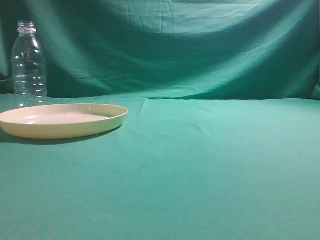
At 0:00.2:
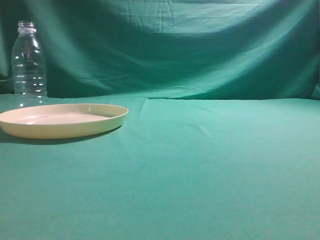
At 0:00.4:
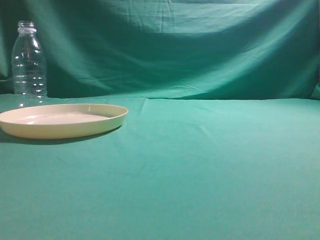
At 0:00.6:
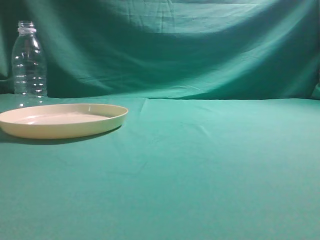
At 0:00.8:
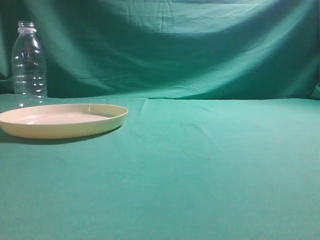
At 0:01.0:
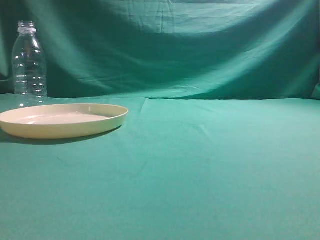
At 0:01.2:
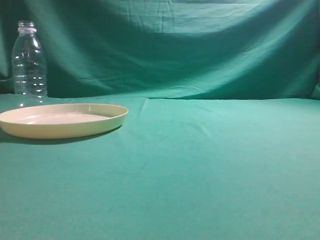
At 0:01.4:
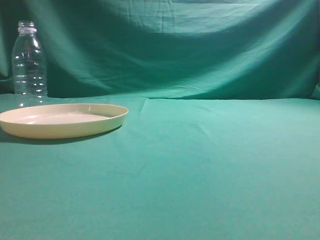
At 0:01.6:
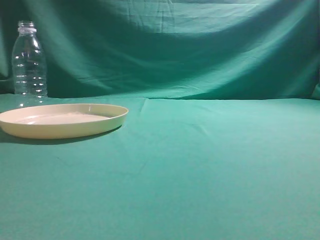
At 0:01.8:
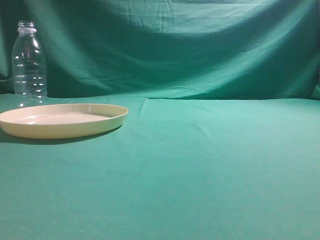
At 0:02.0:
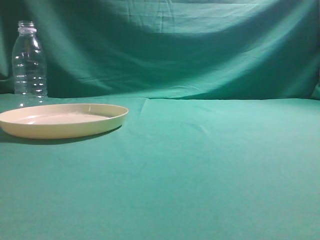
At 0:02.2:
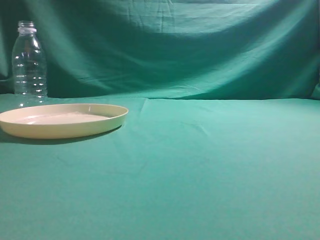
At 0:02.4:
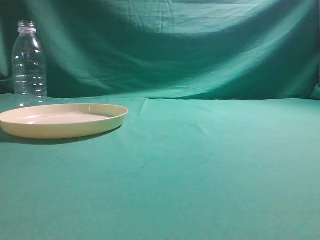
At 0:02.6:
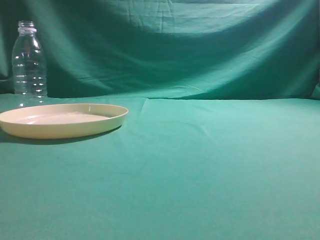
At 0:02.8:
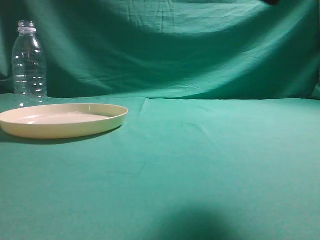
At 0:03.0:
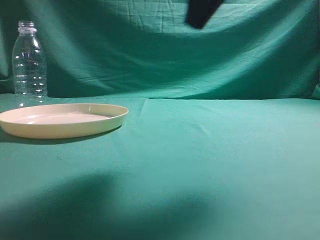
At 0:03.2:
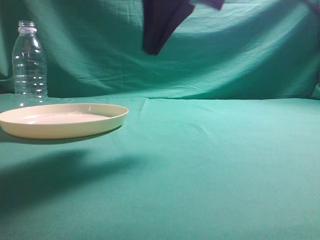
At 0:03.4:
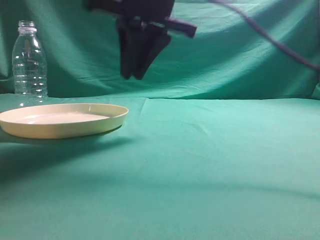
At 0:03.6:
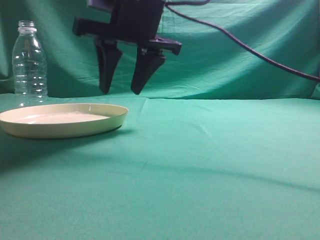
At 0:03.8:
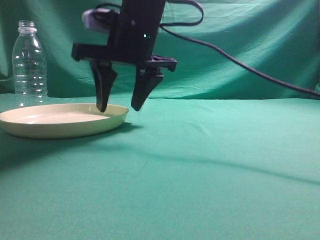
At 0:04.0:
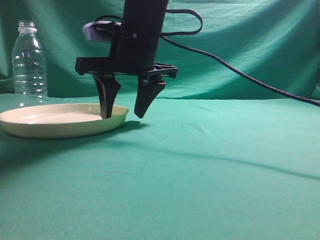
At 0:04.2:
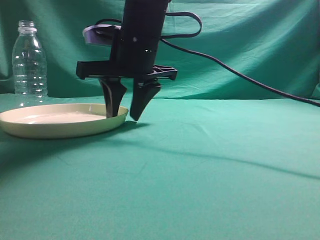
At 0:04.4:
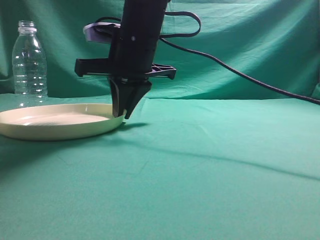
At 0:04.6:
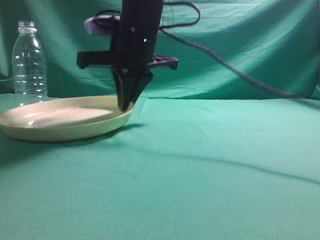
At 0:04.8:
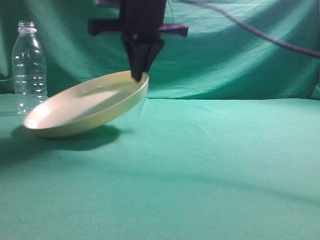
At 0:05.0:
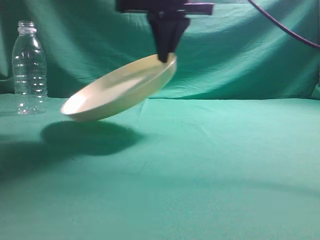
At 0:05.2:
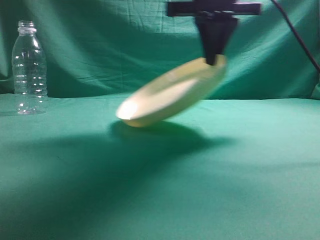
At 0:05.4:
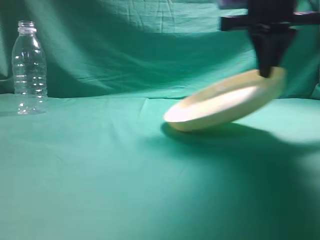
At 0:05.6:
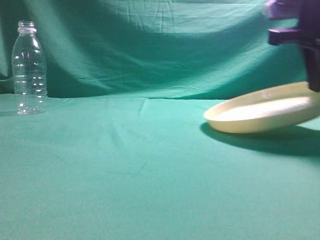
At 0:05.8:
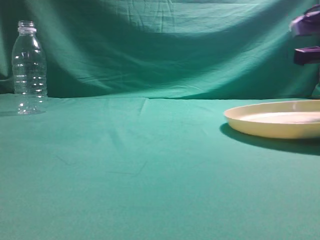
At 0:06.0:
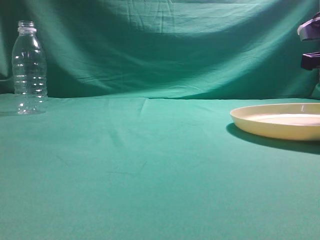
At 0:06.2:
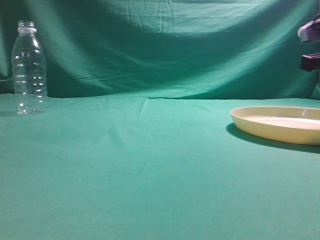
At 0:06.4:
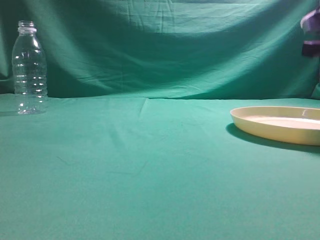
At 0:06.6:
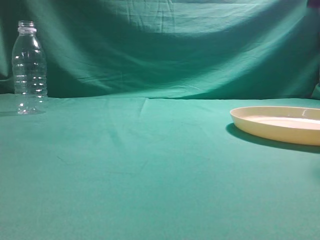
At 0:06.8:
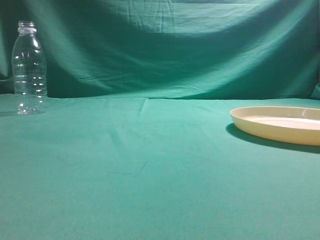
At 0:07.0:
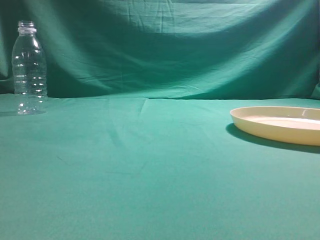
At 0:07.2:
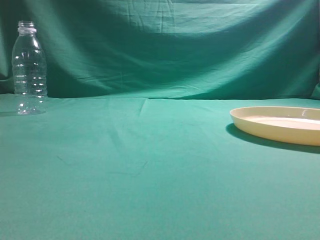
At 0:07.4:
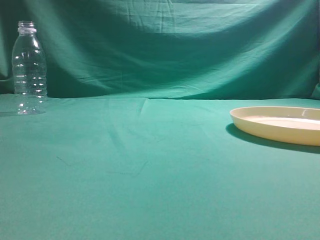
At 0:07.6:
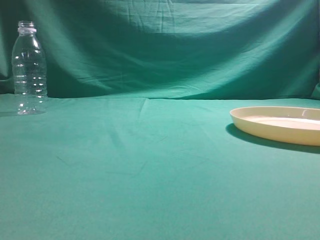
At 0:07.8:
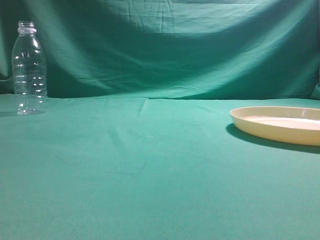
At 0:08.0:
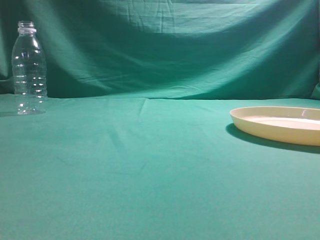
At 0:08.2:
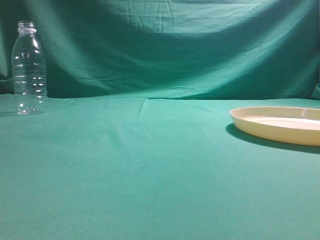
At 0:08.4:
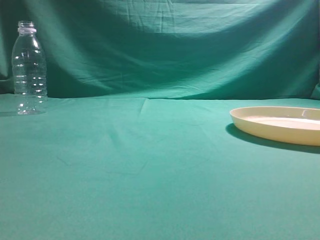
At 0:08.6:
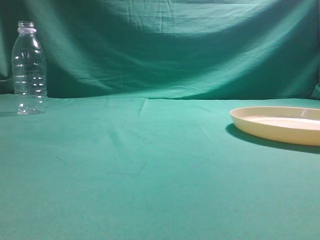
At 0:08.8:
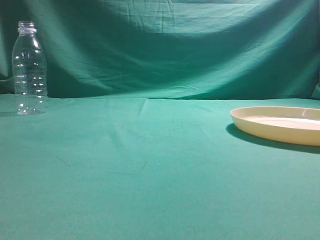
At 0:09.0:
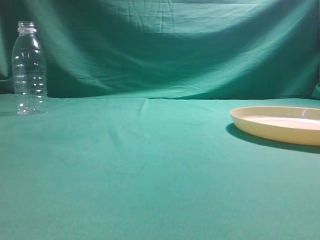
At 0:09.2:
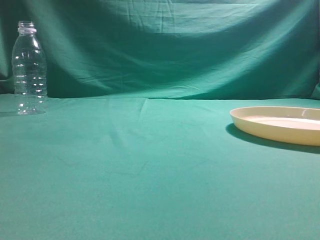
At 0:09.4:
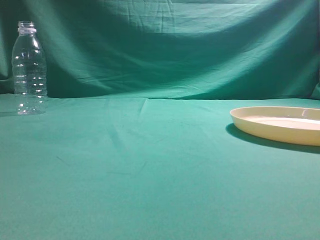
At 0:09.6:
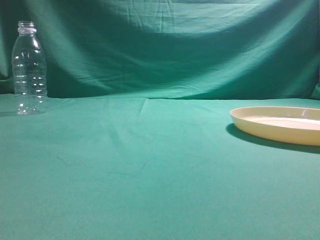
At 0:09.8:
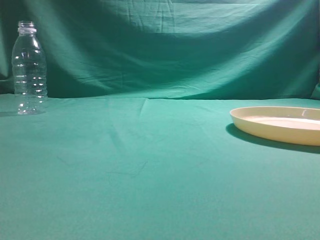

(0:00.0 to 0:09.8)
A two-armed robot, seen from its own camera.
Step, 0:00.0 - 0:04.8: Pick the container that can hold fruits.
Step, 0:05.0 - 0:06.6: Move the picked object to the right side of the table.
0:01.4 - 0:02.8: The right gripper is displaced forward, to the left and upward by roughly 20 cm.
0:02.8 - 0:04.2: The right gripper heads to the left, forward and downward, covering roughly 30 cm, and opens.
0:04.2 - 0:05.6: The right gripper heads to the right, covering some 20 cm, and closes up.
0:05.6 - 0:07.0: The right gripper goes some 20 cm upward, backward and to the right, and opens, then closes again.
